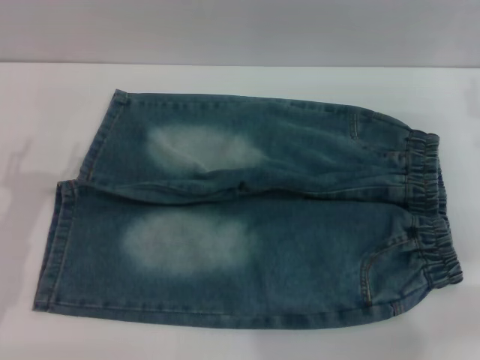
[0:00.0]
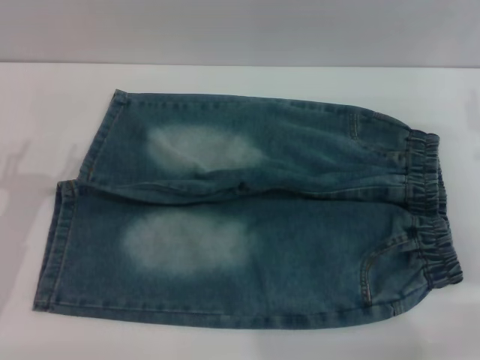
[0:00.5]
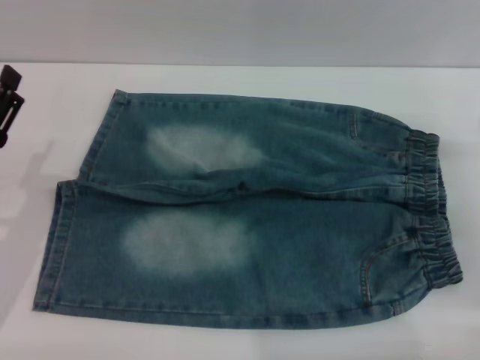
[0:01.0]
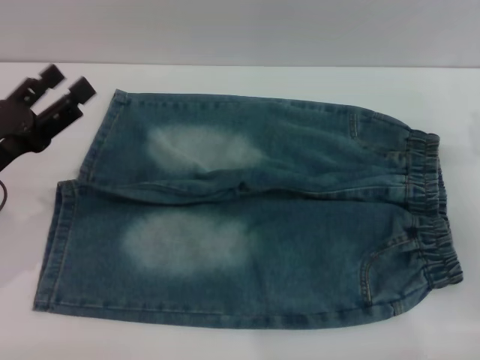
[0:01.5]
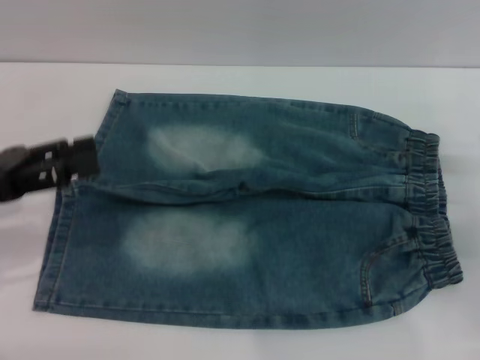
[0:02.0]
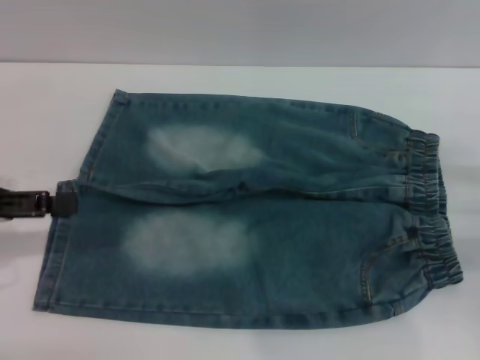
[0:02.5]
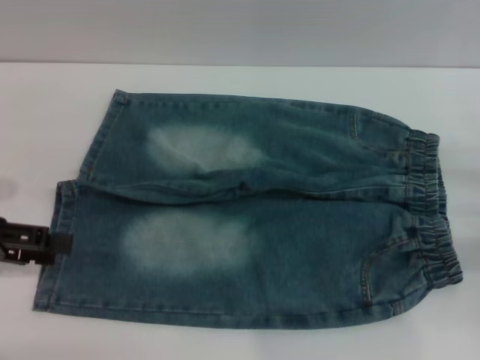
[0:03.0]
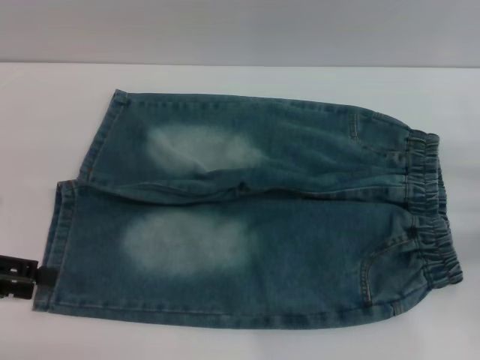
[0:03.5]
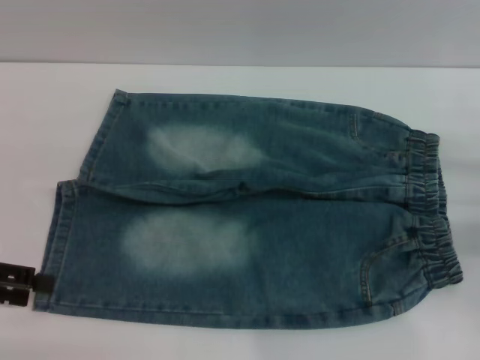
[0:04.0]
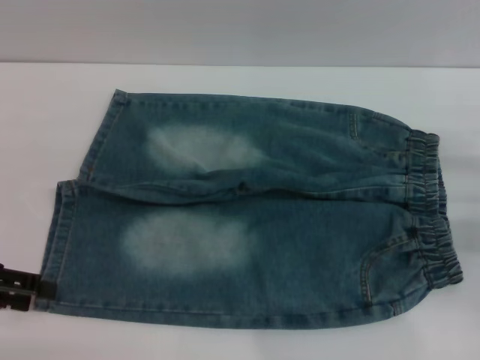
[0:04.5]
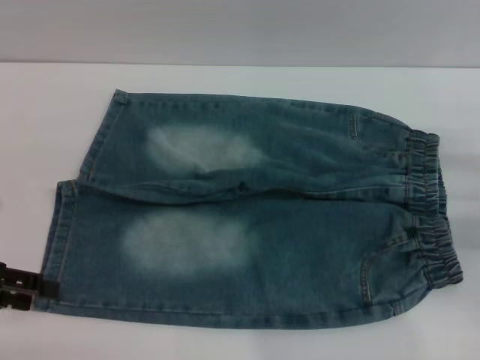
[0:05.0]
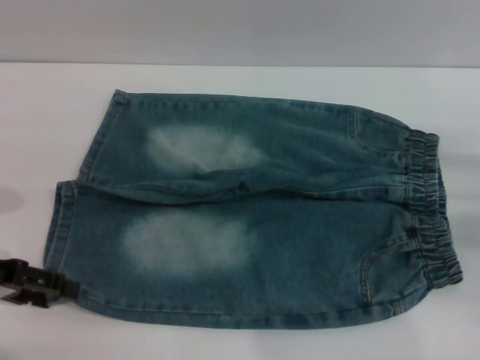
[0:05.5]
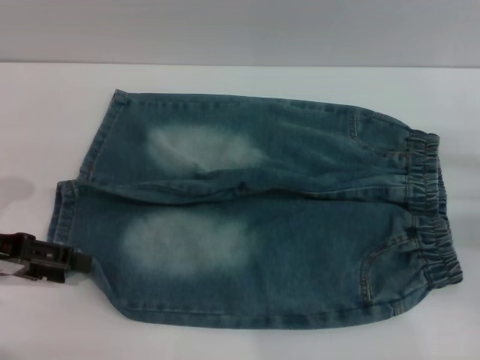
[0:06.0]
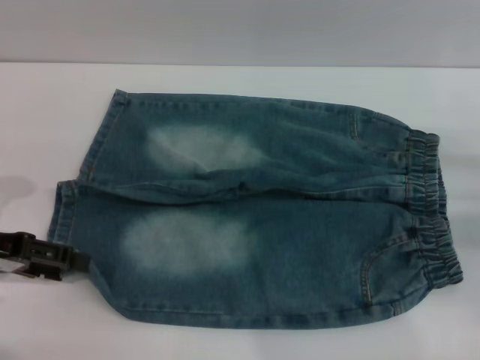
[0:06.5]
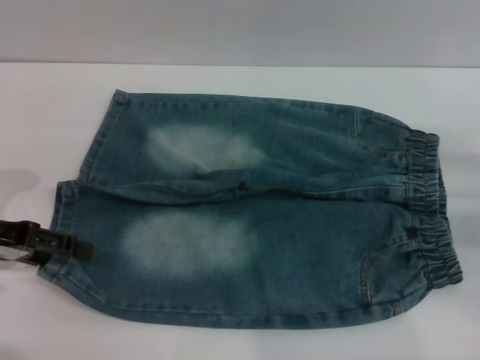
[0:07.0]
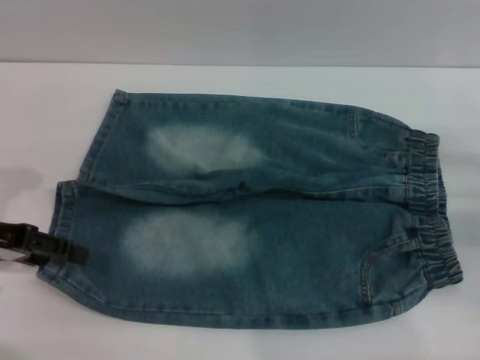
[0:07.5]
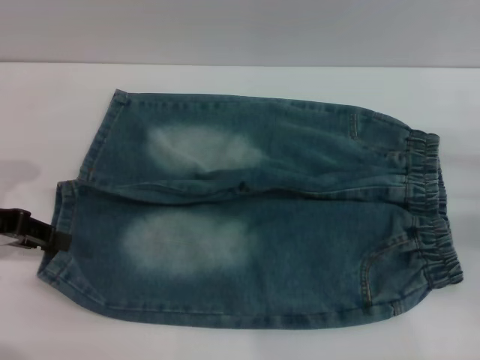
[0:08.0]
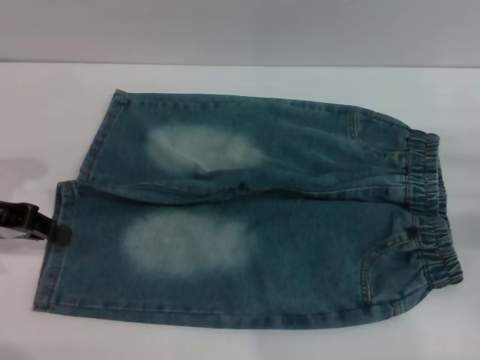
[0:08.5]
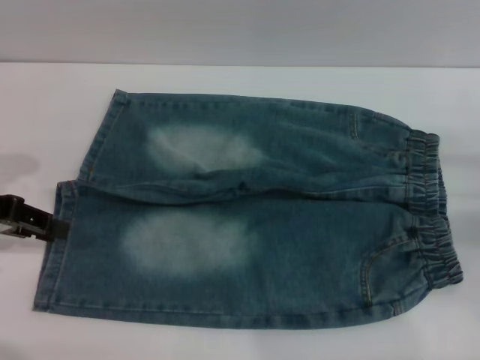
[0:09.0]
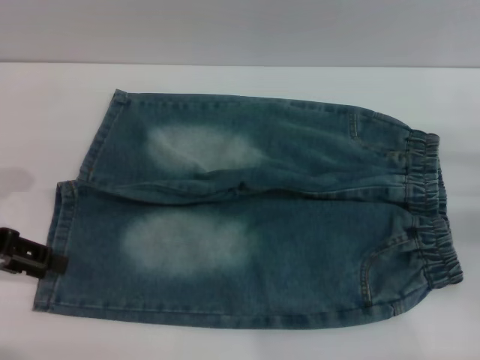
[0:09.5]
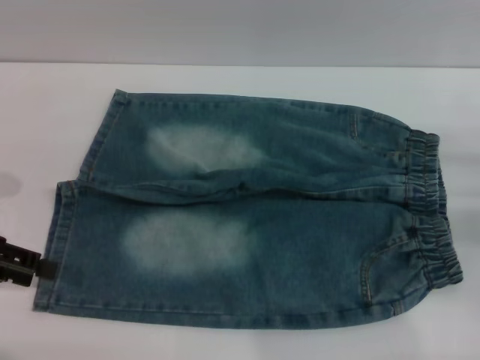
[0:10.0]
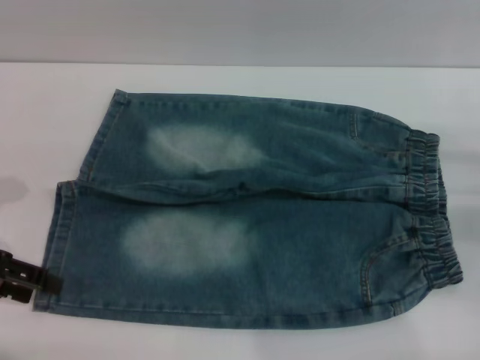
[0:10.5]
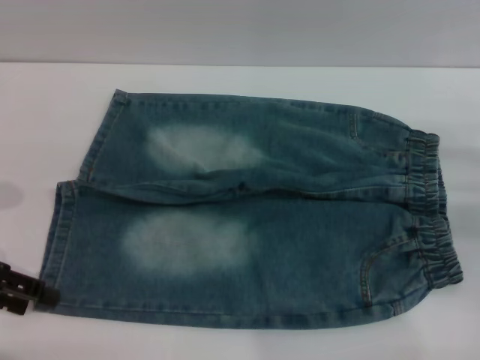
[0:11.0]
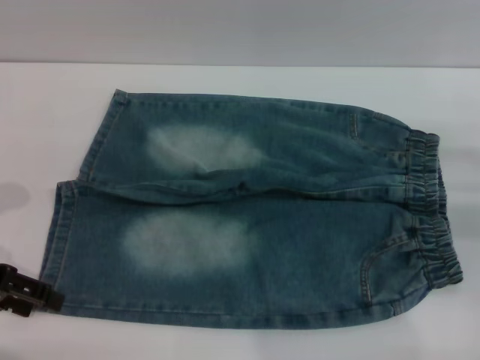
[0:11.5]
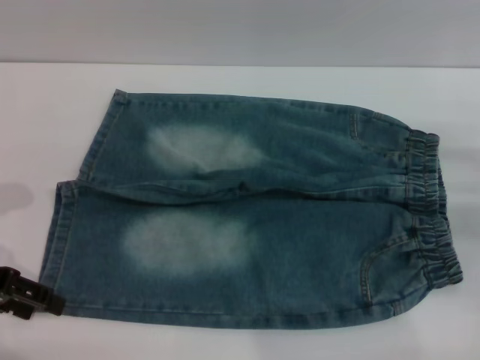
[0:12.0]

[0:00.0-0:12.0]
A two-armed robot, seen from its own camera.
0:00.0 to 0:02.0: The left gripper goes about 5 cm upward; the right gripper travels backward and downward by some 10 cm.
0:02.0 to 0:04.0: The left gripper shifts by approximately 5 cm.
0:04.0 to 0:06.0: The grippers make only small movements.
0:06.0 to 0:08.0: The grippers stay close to where they were, moving slightly.
0:08.0 to 0:10.0: The left gripper closes and opens again.
0:10.0 to 0:12.0: The grippers stay close to where they were, moving slightly.

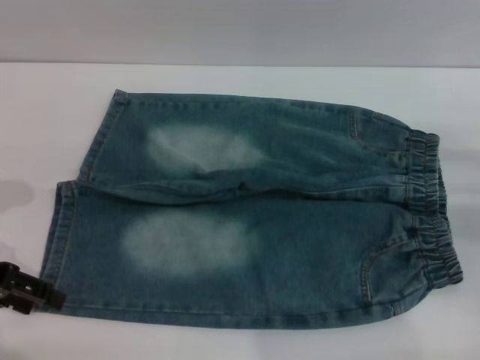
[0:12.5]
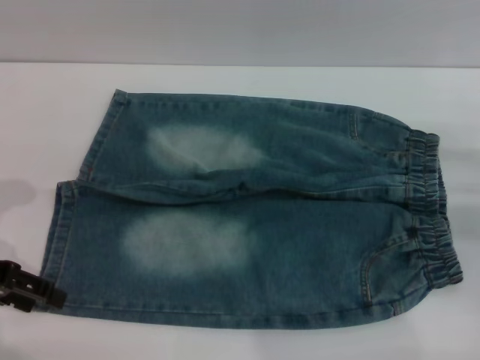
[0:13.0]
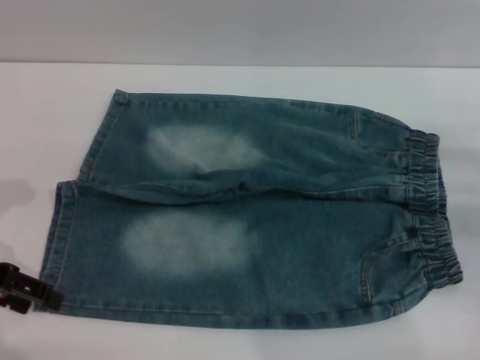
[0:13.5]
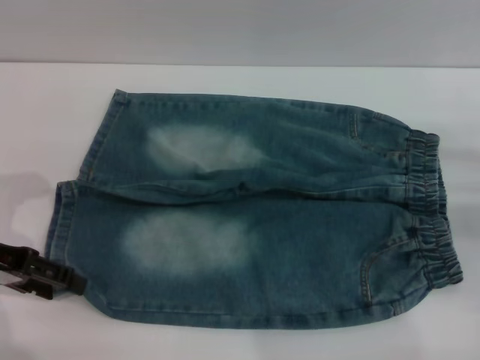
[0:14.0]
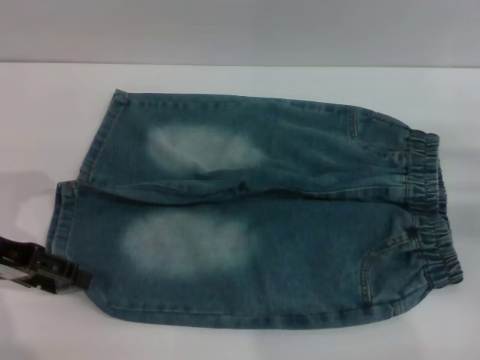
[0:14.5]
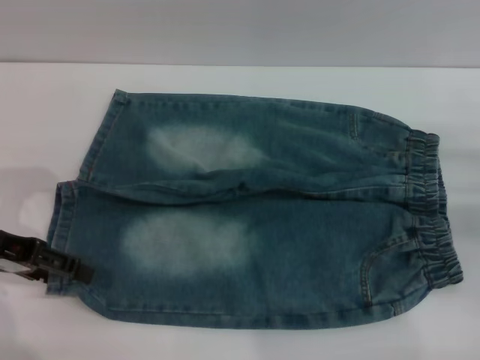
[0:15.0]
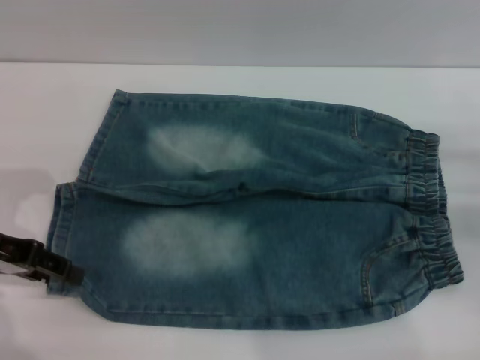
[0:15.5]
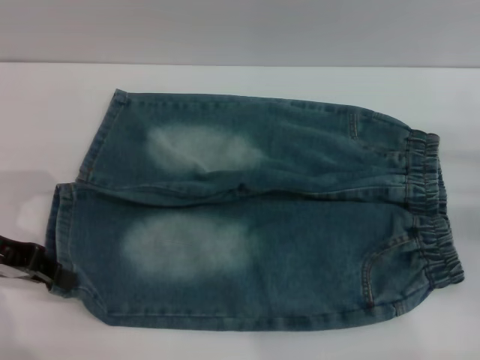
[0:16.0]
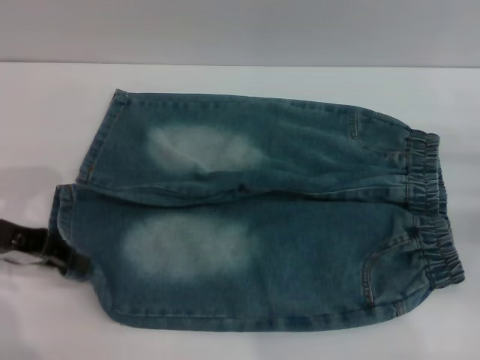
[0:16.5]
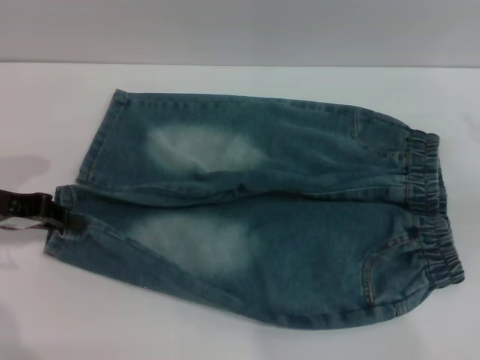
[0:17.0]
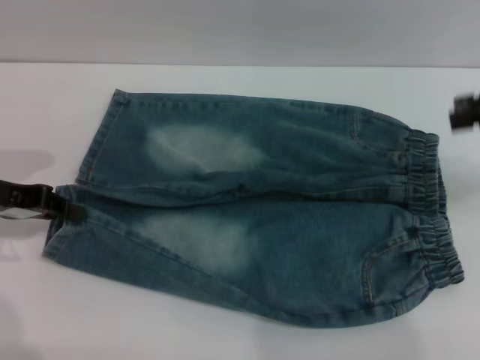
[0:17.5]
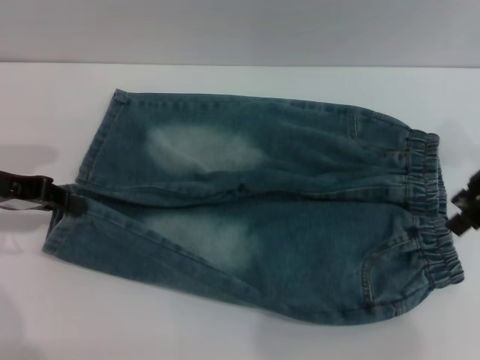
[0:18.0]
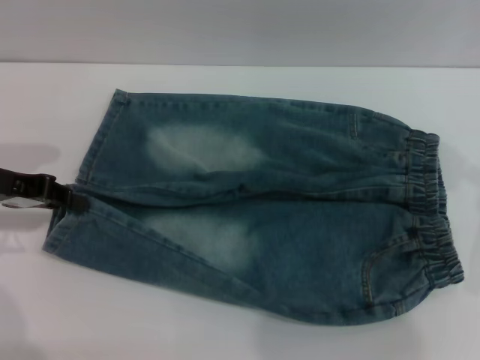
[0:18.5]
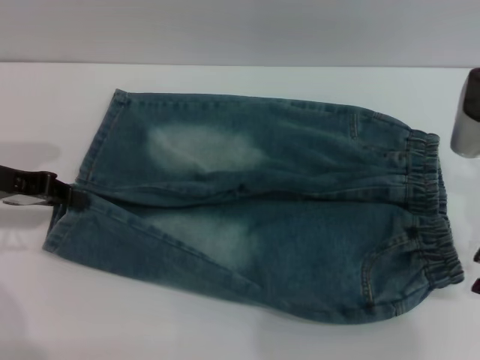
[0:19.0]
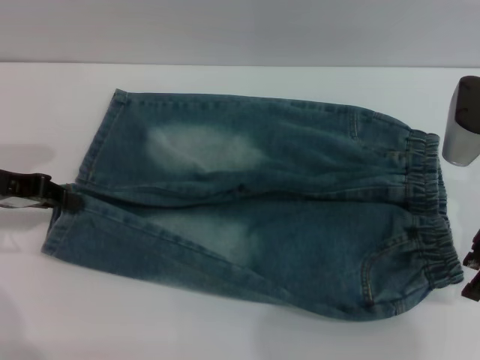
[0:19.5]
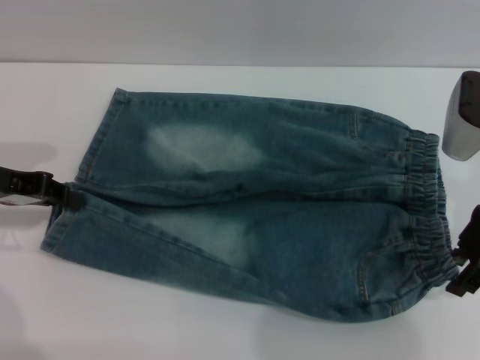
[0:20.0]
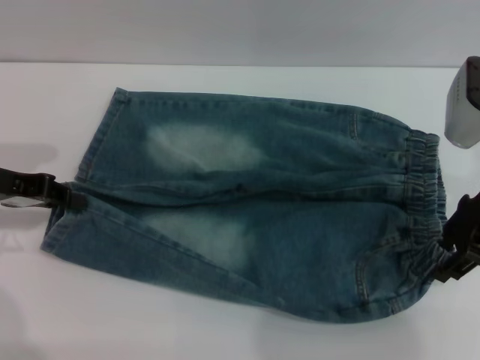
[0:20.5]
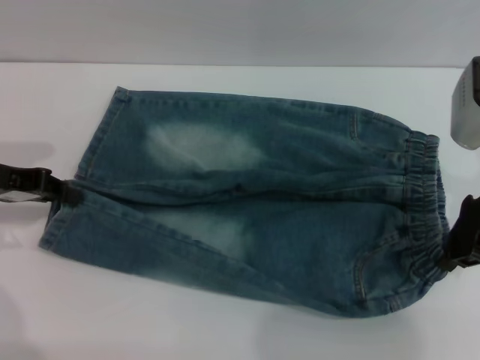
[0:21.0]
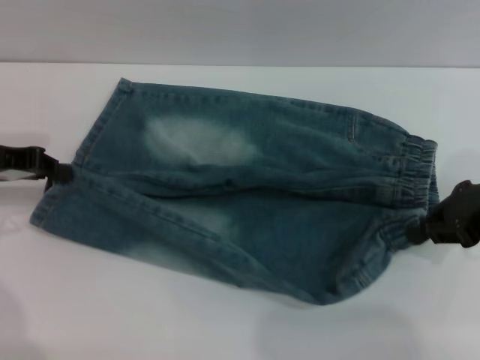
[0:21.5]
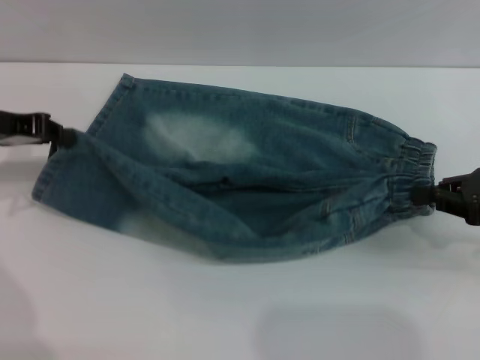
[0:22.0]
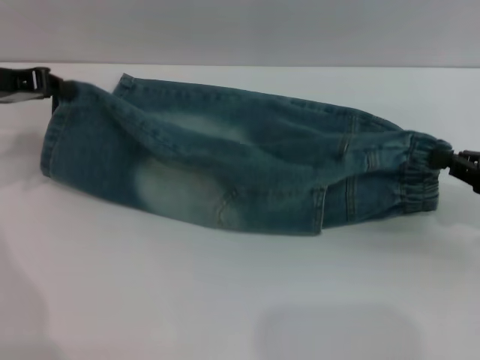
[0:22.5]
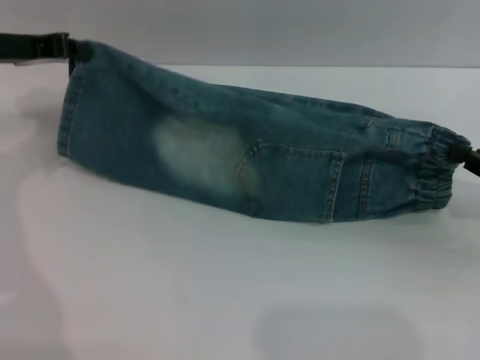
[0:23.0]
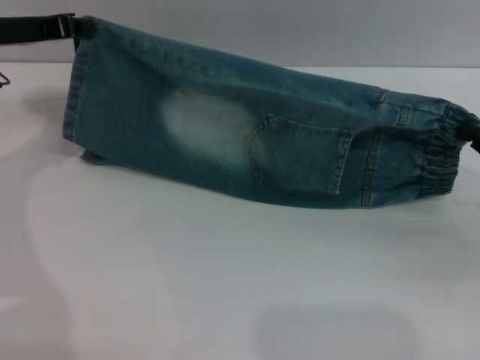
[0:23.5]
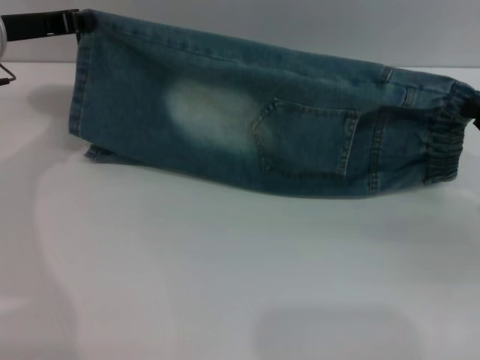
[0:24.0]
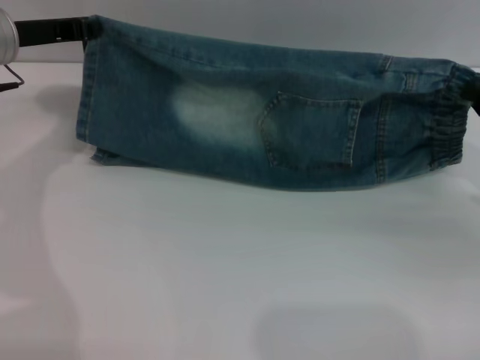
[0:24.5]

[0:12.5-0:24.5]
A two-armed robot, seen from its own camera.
0:12.5 to 0:14.5: The grippers make only small movements.
0:14.5 to 0:16.5: The left gripper closes its fingers.
0:16.5 to 0:18.5: The right gripper goes roughly 15 cm upward and to the left.
0:18.5 to 0:20.5: The grippers move only a little.
0:20.5 to 0:22.5: The right gripper heads to the right, backward and downward, covering roughly 15 cm, and closes its fingers; the left gripper moves forward, approximately 5 cm.
0:22.5 to 0:24.5: The left gripper goes approximately 5 cm to the right.

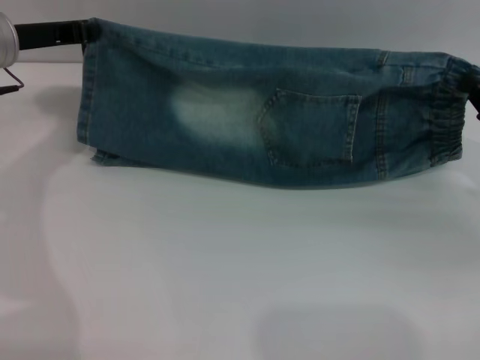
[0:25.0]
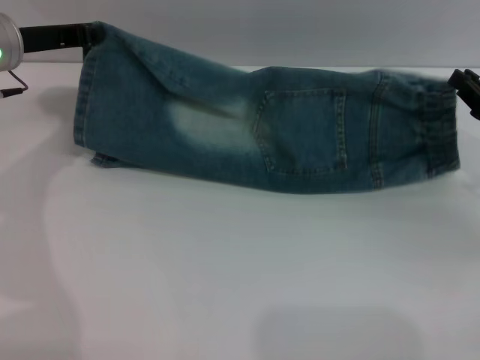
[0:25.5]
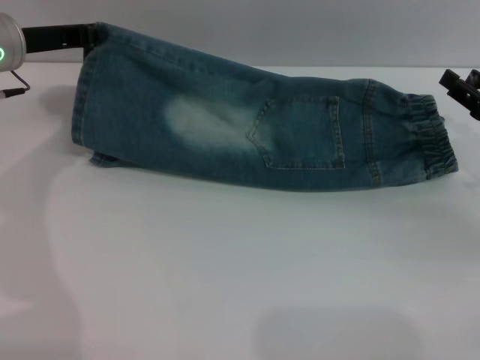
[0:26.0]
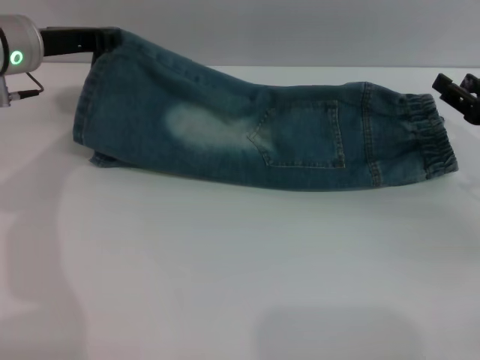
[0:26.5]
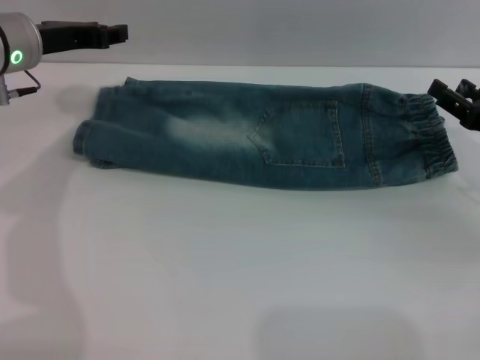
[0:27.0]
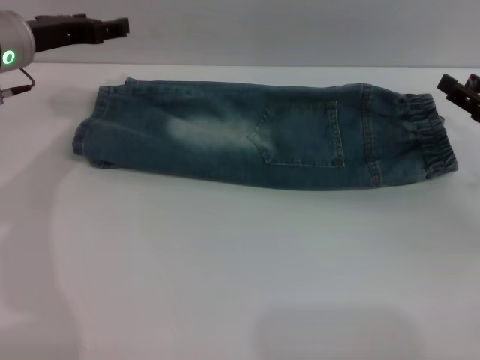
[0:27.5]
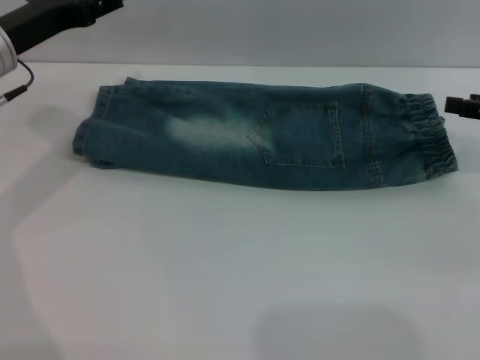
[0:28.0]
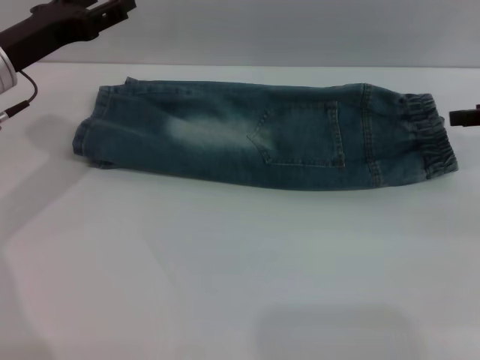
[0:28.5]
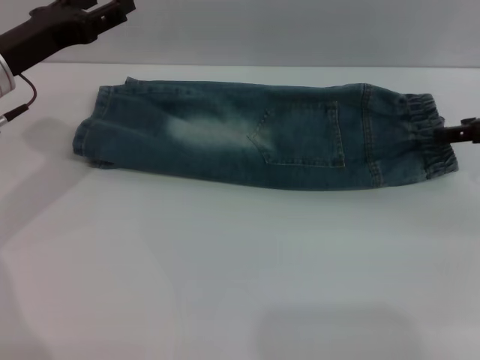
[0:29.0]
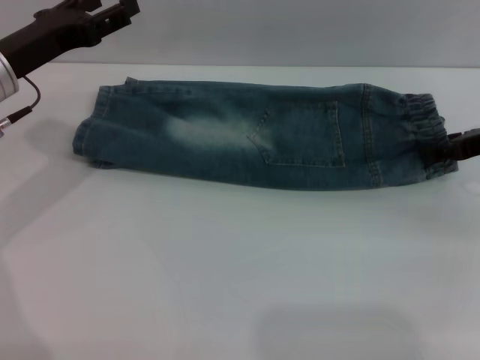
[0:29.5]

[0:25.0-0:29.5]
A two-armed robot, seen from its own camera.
Step, 0:25.0 to 0:27.0: Fold the bottom of the pants upward with both grippers.
0:25.0 to 0:27.0: The right gripper opens up.
0:27.0 to 0:29.5: The right gripper moves forward, roughly 5 cm, while the left gripper is displaced backward by some 5 cm, and opens up.
